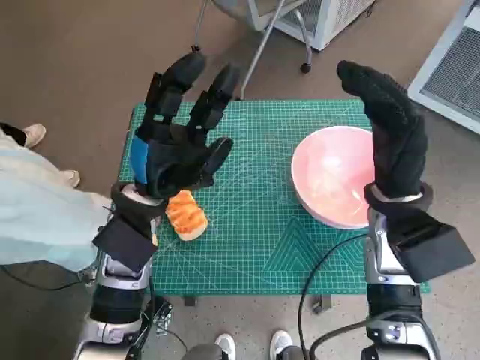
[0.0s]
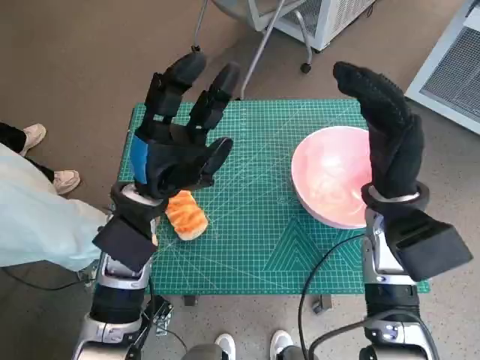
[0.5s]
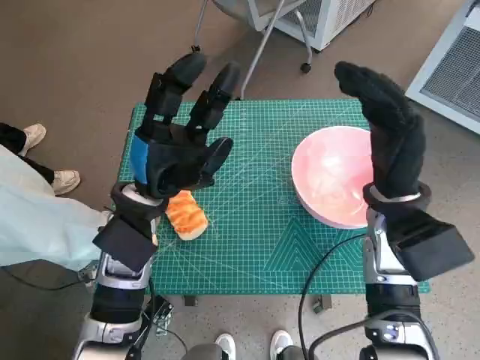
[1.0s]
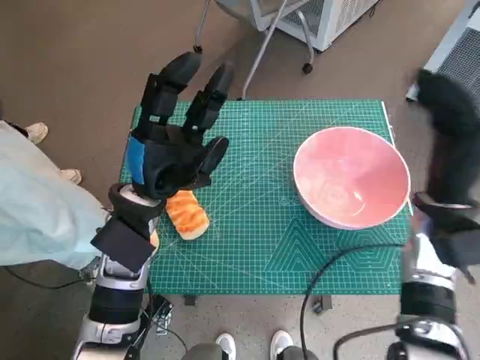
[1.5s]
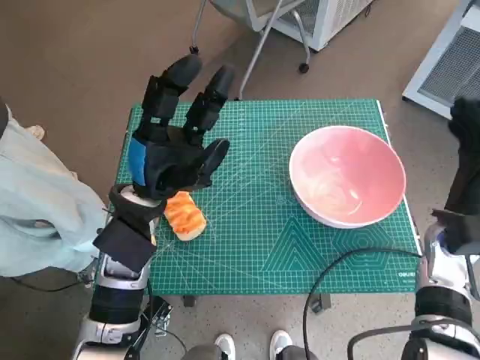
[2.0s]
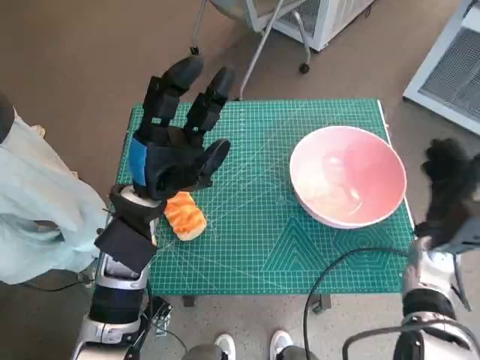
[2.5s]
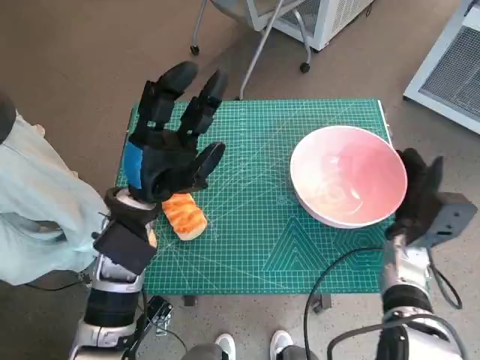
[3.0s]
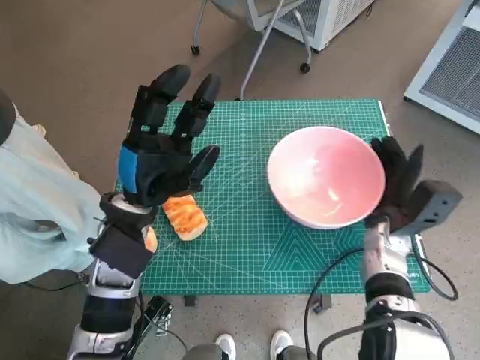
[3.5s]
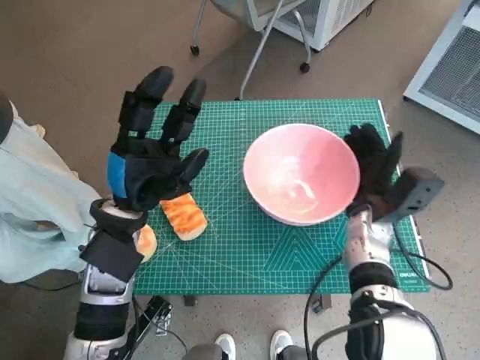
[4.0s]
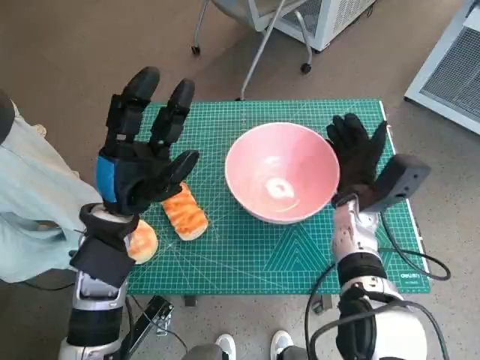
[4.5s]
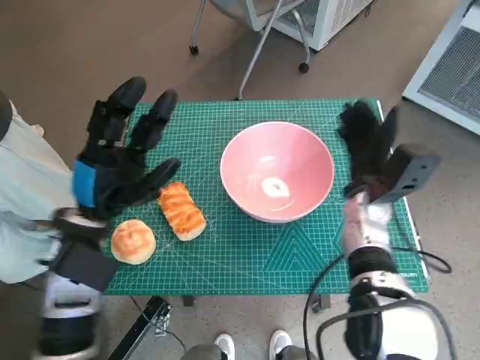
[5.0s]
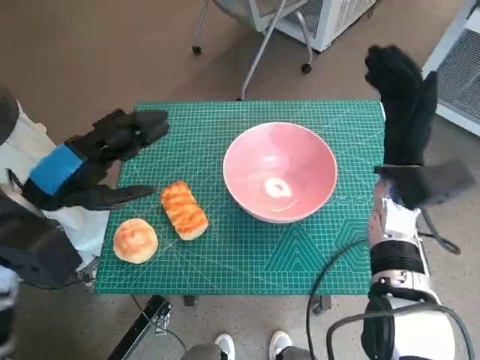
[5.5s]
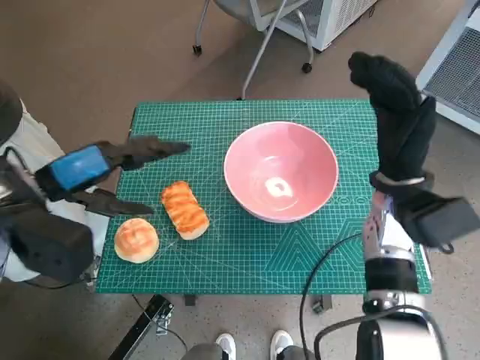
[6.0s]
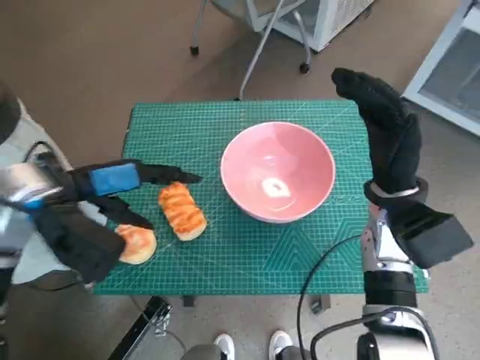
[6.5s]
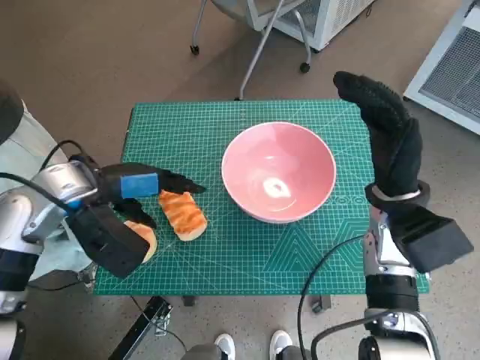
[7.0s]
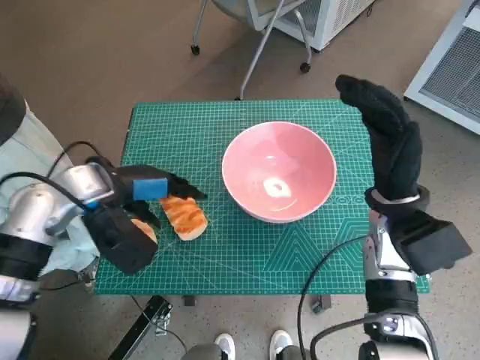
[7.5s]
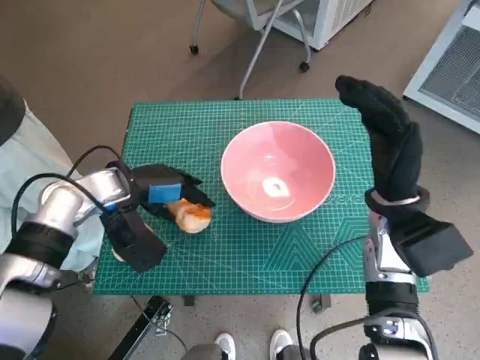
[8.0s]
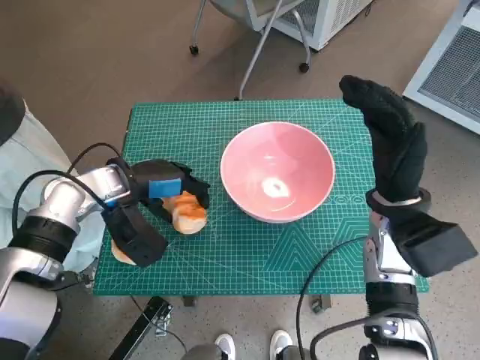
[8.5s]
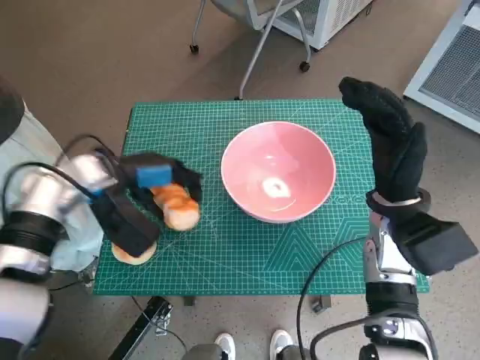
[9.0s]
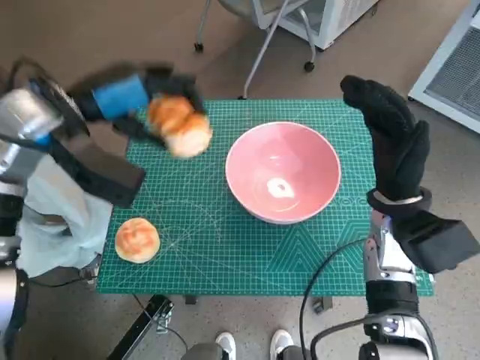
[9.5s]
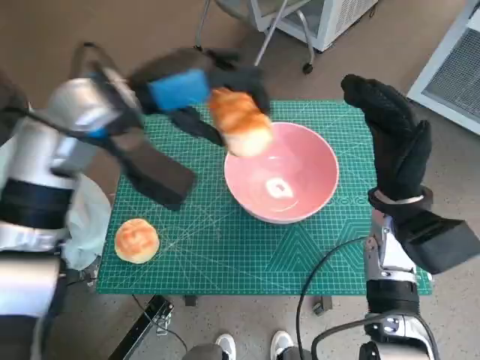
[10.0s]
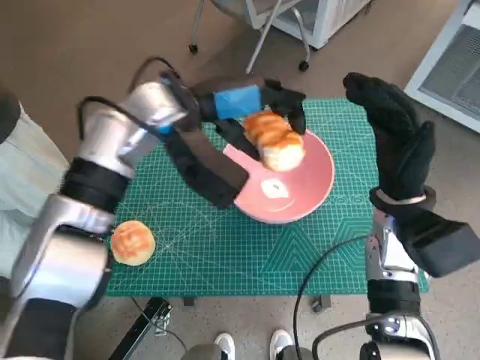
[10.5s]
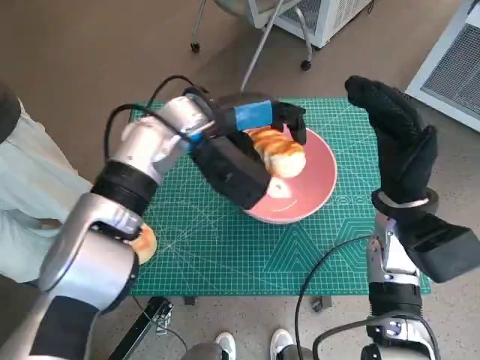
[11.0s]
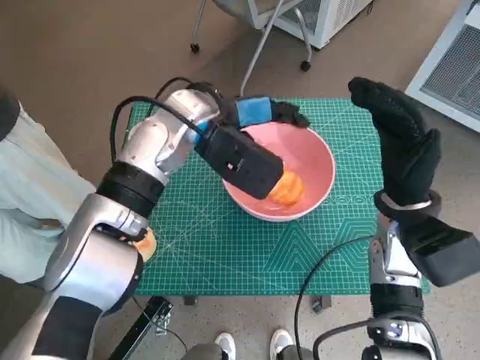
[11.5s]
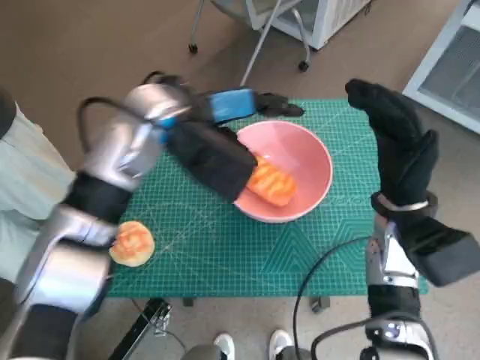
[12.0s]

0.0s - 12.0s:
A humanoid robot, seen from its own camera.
Task of the whole recording: Push the bowl to the center of the table and put the bread into the bowl.
Step, 0.0s - 4.5s: Move the pink bowl to the center of table with right hand.
Step, 5.0s - 8.0s: Grasp the long bread with left hand.
Step, 8.5s - 11.5s: Place the long bread in pink bowl with left hand.
2.0s - 4.0s: The right hand shifts about 10 cm to the left.
4.0s - 6.0s: The left hand heads upward and to the left, covering roughly 10 cm; the right hand moves upward, roughly 10 cm.
6.0s - 8.0s: The left hand is displaced downward and forward by about 10 cm.
8.0s - 10.0s: The left hand travels upward by about 15 cm.
10.0s - 12.0s: The left hand is displaced to the right by approximately 5 cm.

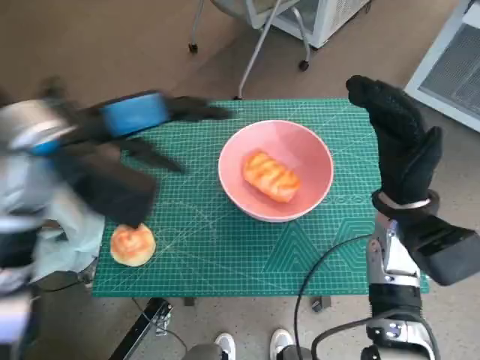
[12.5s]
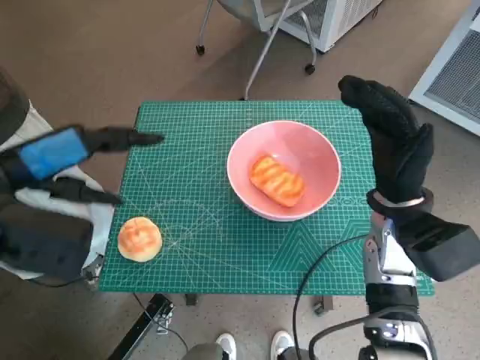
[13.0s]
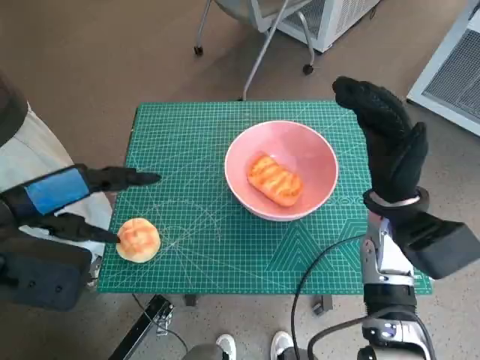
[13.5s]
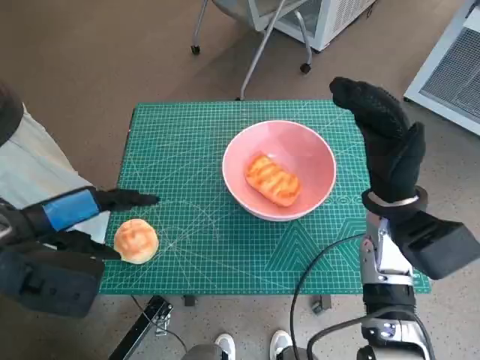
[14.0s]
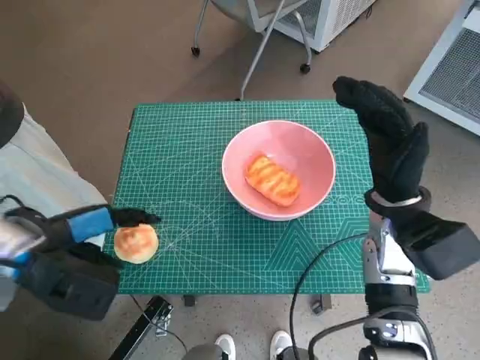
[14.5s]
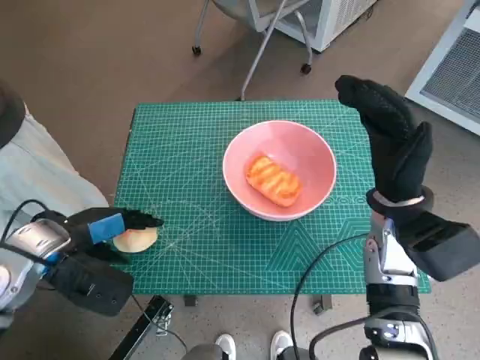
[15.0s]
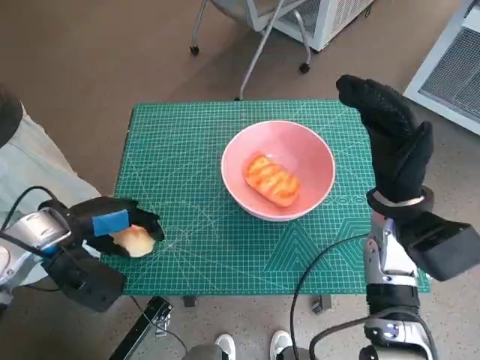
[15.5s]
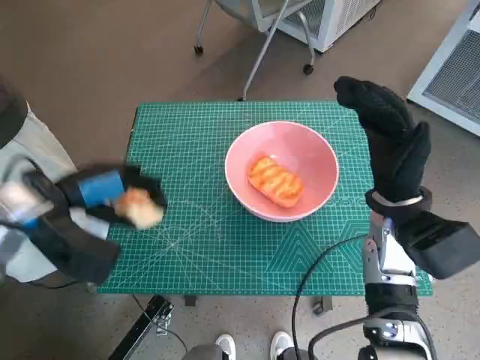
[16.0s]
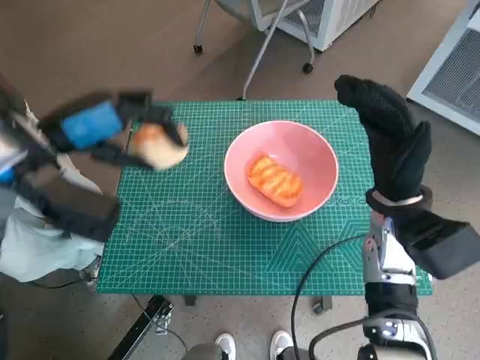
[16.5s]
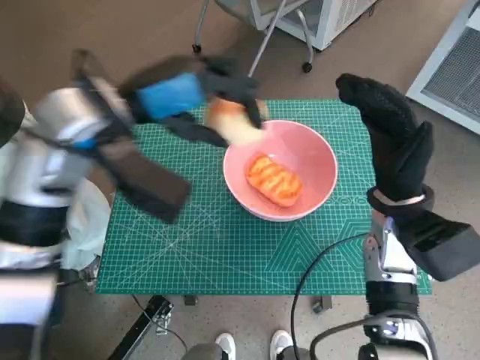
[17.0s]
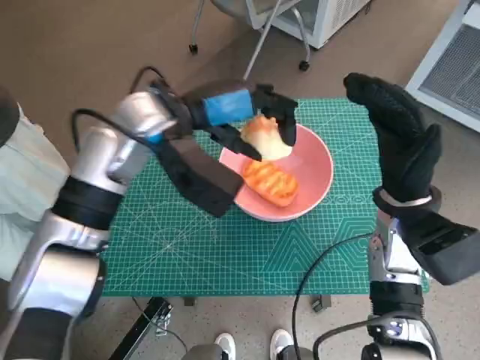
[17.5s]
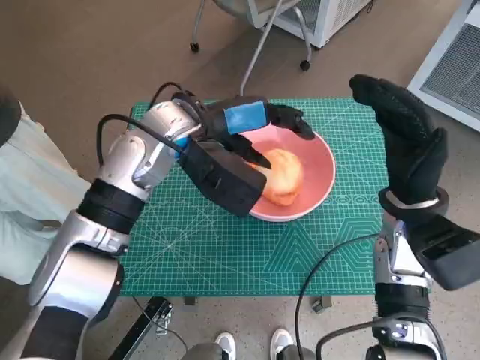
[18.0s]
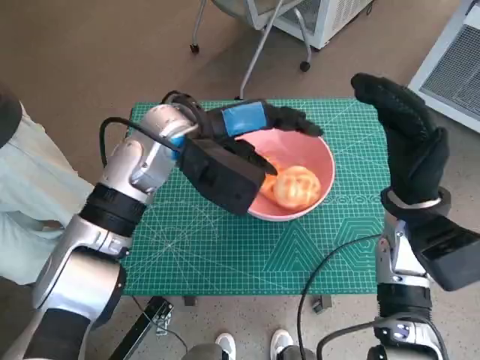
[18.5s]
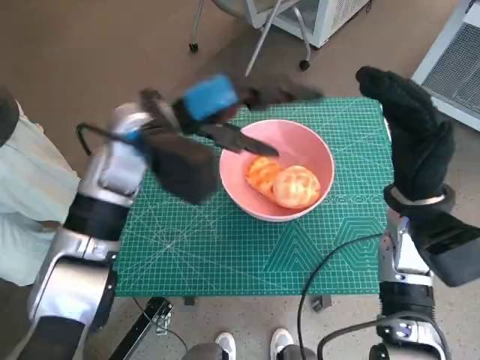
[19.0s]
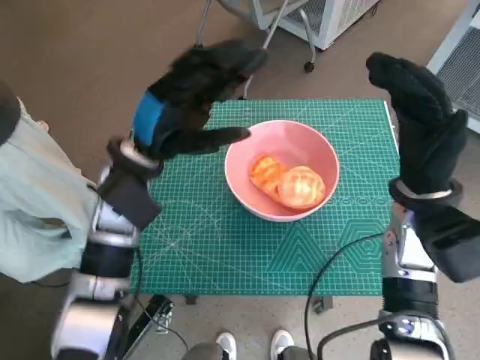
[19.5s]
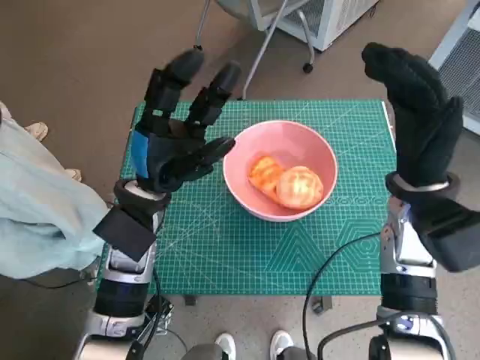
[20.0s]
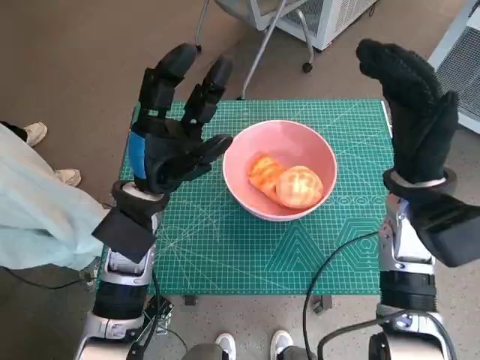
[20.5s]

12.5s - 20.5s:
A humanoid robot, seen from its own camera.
Task of the whole recording: Push the bowl to the center of the table and put the bread into the bowl.
Step, 12.5s - 15.0s: Grasp the round bread with left hand.
Step, 15.5s - 18.5s: Place the round bread in pink bowl with left hand.
12.5s - 14.5s: The left hand is displaced downward, backward and to the left by roughly 15 cm.
14.5s - 16.5s: The left hand moves upward and forward, approximately 10 cm.
16.5s - 18.5s: The left hand heads to the right and forward, covering approximately 15 cm.
18.5s - 20.5s: The left hand travels downward, backward and to the left by some 10 cm.

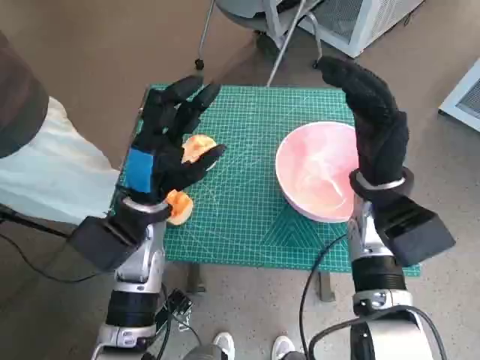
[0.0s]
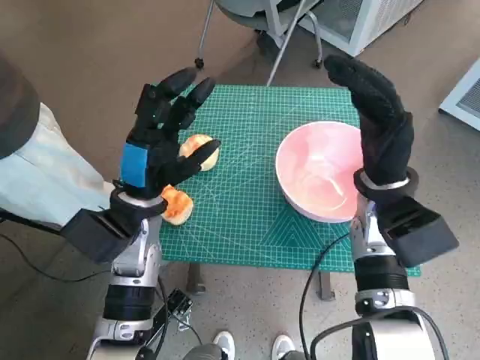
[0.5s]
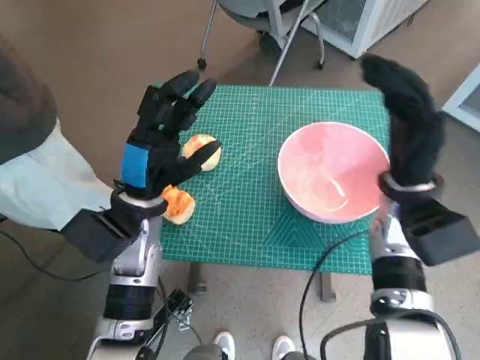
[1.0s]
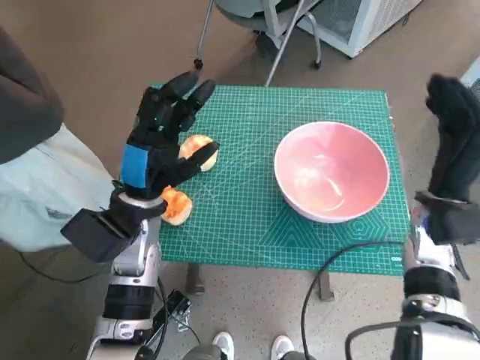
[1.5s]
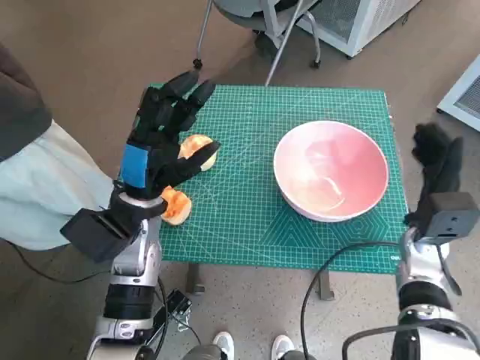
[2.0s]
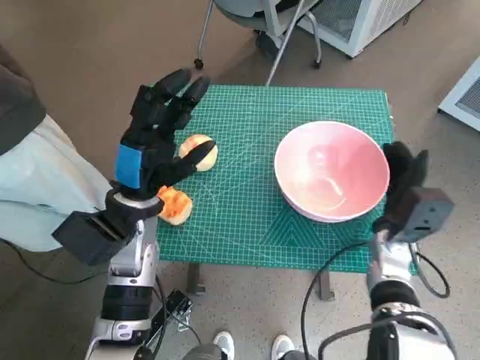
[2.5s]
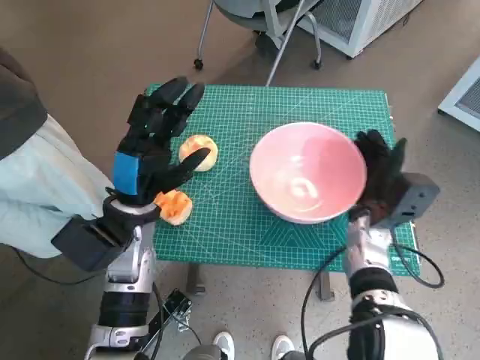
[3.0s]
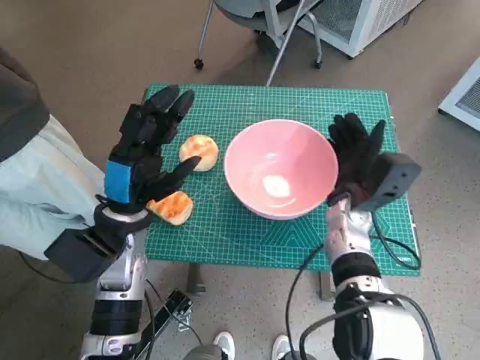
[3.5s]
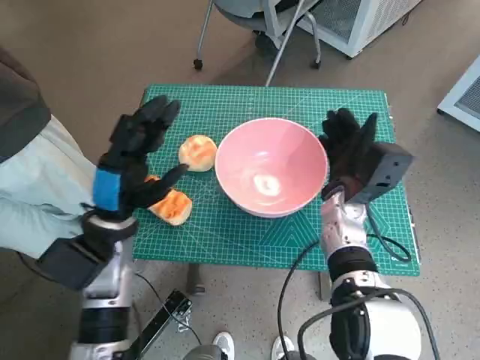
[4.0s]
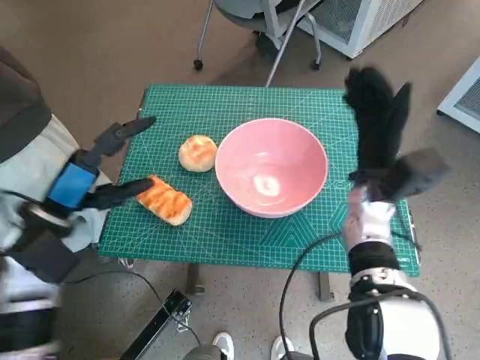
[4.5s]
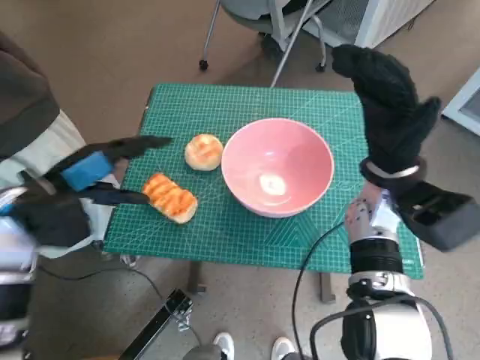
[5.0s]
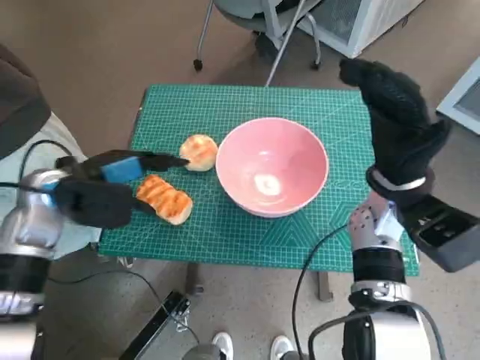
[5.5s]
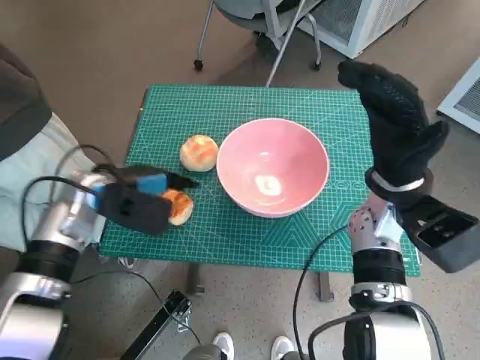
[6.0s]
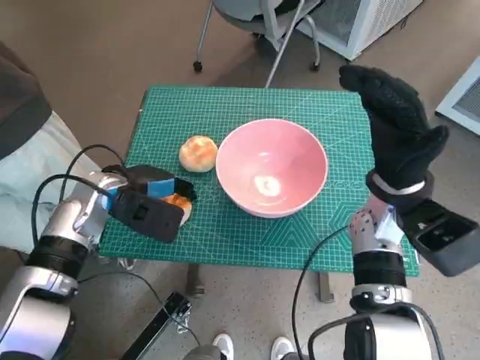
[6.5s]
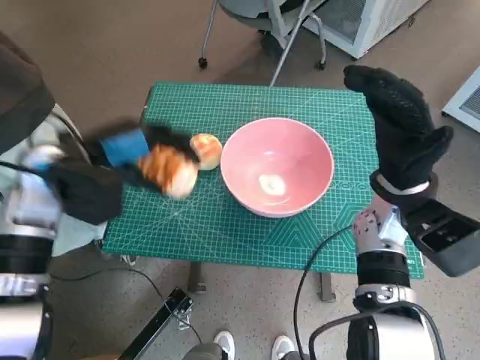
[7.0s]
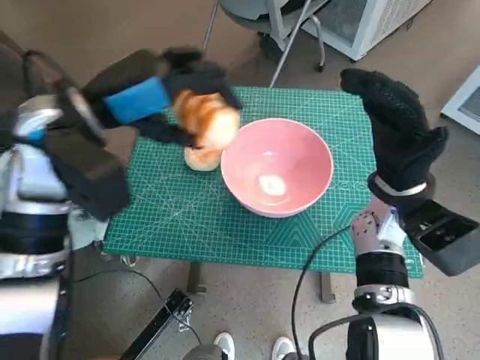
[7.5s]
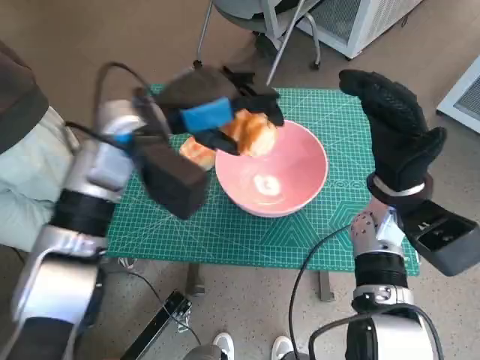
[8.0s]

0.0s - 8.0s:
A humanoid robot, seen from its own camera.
Task of the whole recording: Push the bowl to the center of the table and put the bread into the bowl.
Step, 0.0s - 4.0s: Move the pink bowl to the center of table with right hand.
Step, 4.5s - 6.5s: Grasp the long bread with left hand.
2.0s - 4.0s: The right hand shifts roughly 10 cm to the left.
4.0s - 6.0s: The left hand shifts approximately 5 cm forward; the right hand moves upward, roughly 5 cm.
6.0s - 8.0s: The left hand travels upward and to the right by about 15 cm.
